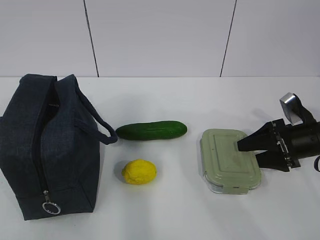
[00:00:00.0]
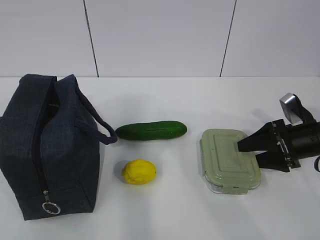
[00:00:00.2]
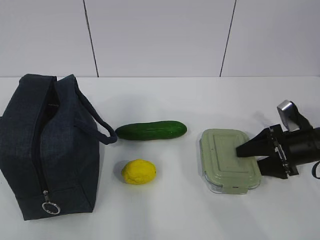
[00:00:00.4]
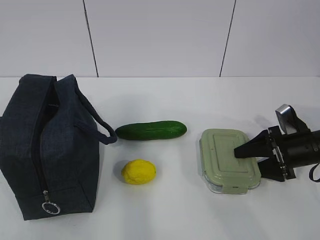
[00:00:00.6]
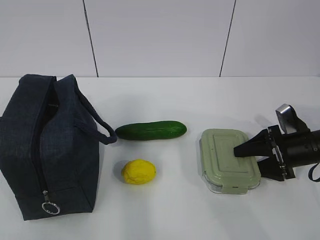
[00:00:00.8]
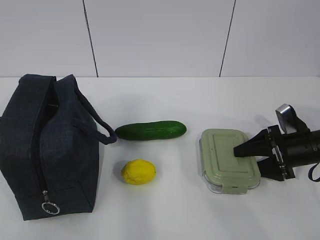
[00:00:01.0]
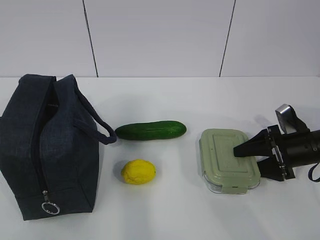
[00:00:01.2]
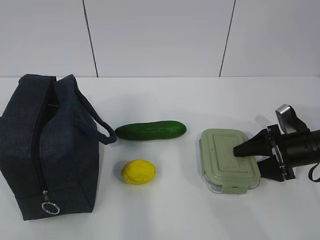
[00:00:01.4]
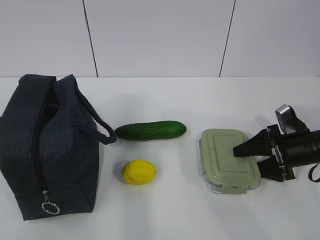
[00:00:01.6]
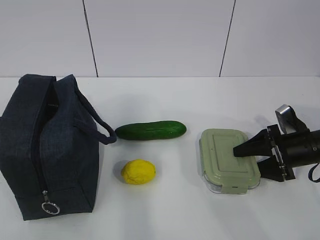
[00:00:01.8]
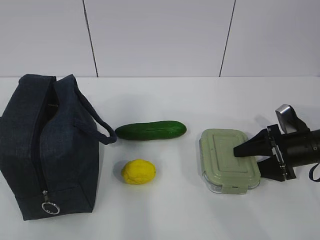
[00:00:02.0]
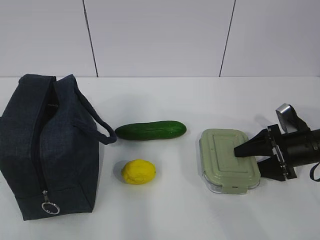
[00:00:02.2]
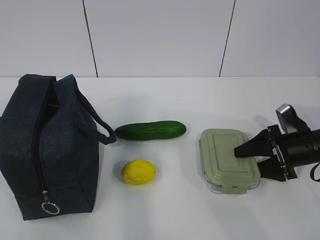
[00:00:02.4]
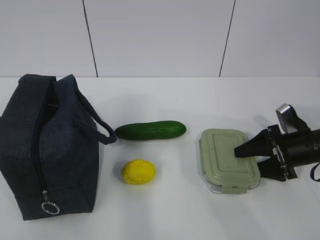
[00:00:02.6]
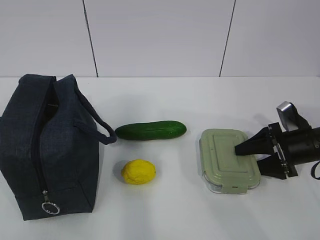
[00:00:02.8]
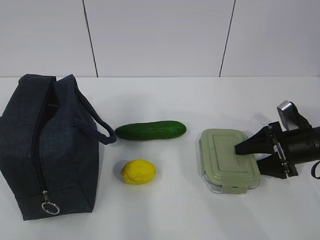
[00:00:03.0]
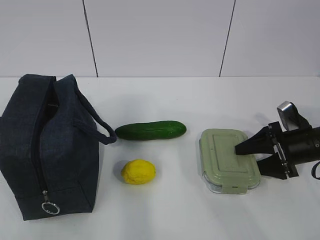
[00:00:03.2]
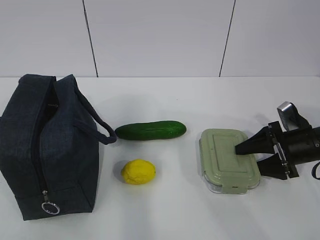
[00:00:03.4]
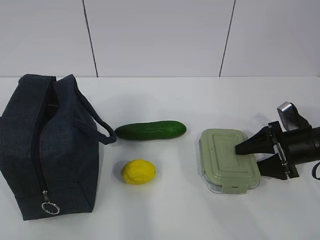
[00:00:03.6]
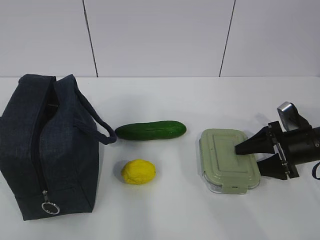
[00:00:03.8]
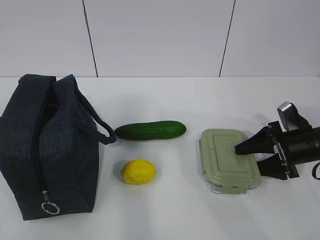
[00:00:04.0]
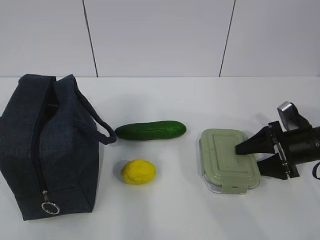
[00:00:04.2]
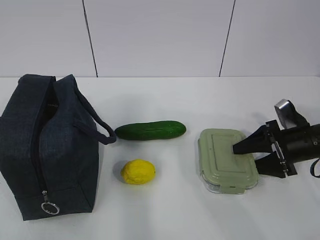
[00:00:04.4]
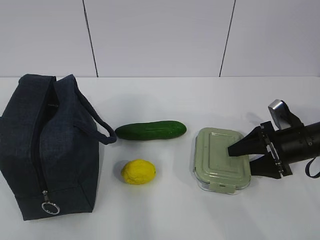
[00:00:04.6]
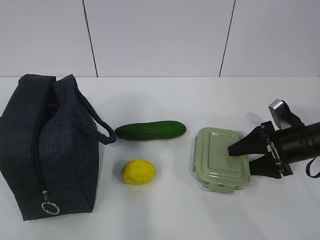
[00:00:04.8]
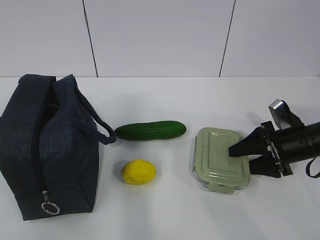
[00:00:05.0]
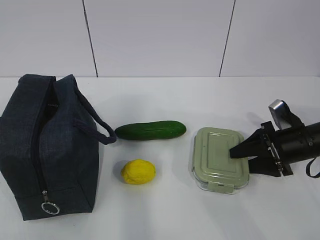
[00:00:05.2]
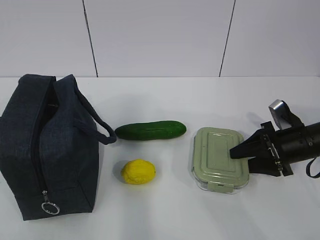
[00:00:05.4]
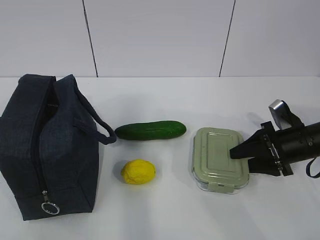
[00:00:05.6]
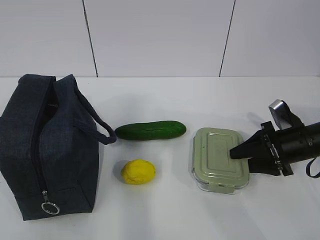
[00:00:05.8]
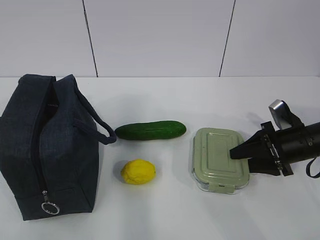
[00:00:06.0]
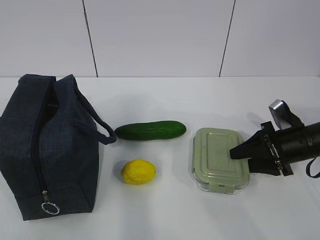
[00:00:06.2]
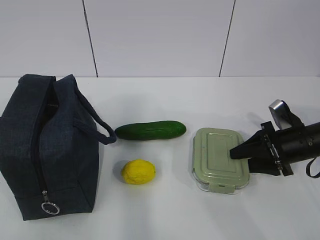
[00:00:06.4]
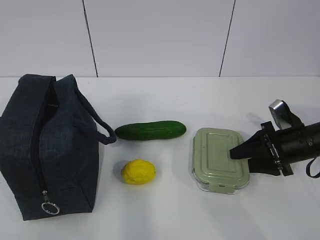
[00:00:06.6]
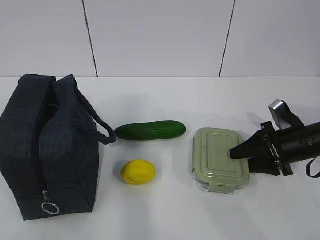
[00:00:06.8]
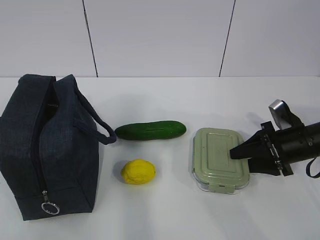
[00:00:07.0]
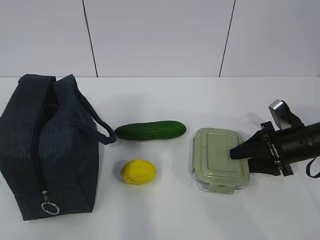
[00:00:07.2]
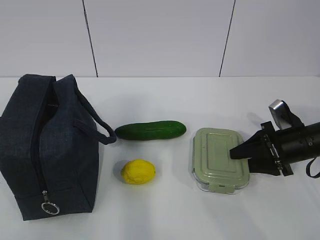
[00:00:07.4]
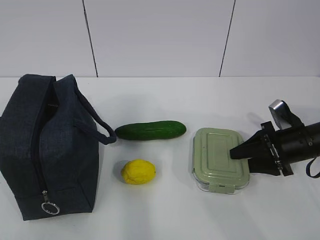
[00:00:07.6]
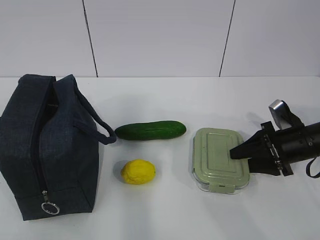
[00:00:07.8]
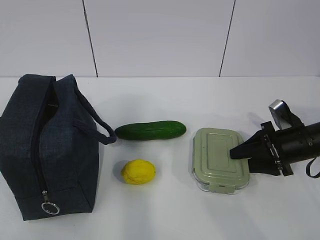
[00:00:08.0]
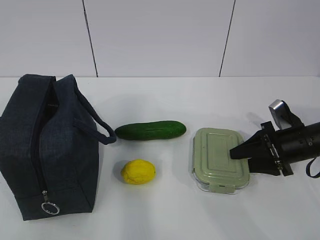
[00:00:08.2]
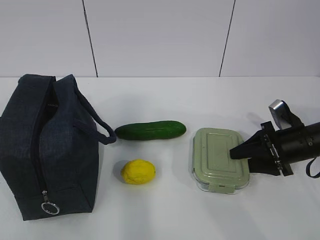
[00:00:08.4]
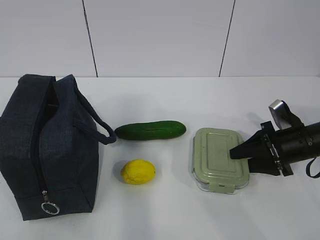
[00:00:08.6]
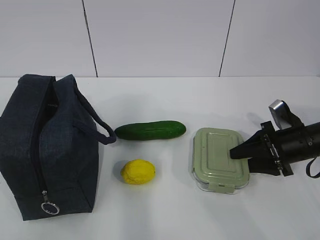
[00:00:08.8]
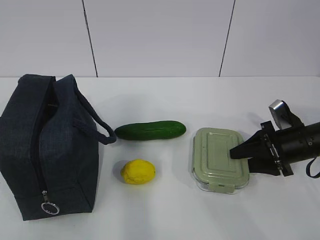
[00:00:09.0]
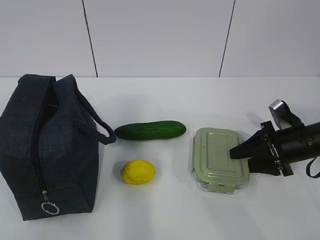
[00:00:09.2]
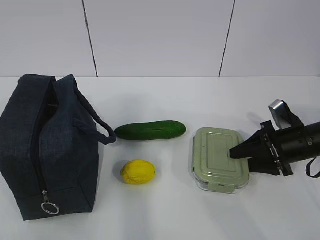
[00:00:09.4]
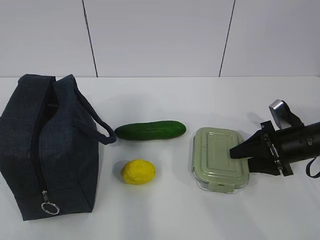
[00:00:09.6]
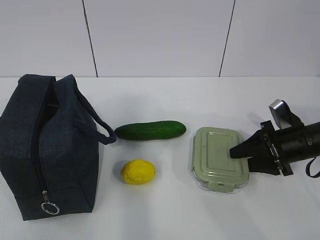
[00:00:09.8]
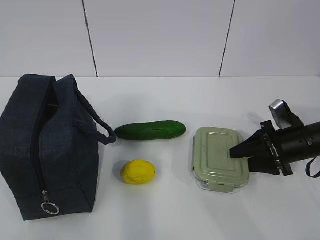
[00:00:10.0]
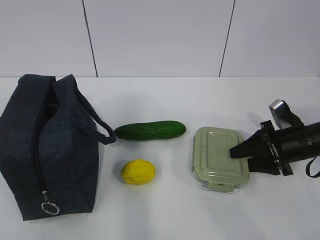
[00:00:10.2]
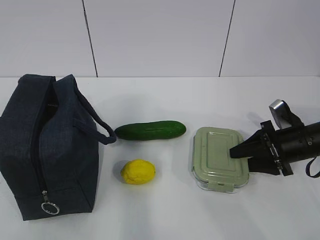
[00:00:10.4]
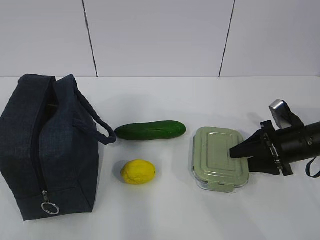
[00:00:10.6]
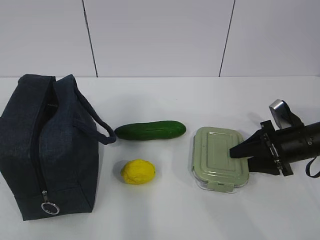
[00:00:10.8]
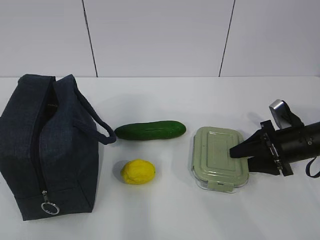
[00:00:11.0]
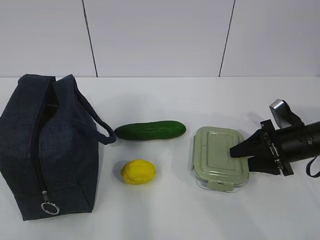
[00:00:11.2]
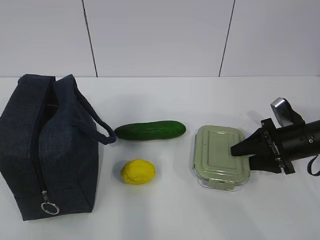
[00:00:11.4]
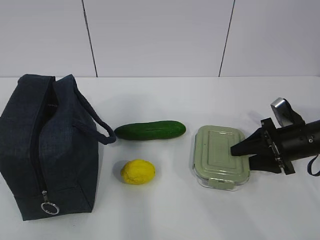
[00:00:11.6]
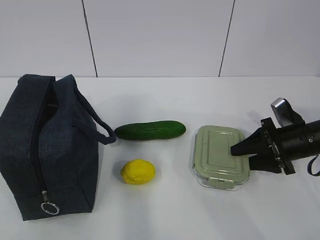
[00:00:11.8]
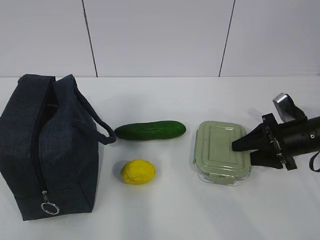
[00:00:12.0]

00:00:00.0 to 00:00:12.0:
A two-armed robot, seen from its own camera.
Step, 00:00:00.0 to 00:00:08.2: Grab the lunch box with your right hand.
00:00:00.0 to 00:00:01.6: The grippers move only a little.
00:00:01.6 to 00:00:03.0: Both grippers stay put.
00:00:03.0 to 00:00:04.4: The two grippers keep their place.
00:00:04.4 to 00:00:10.4: Both grippers stay about where they are.
00:00:10.4 to 00:00:12.0: Neither gripper changes place.

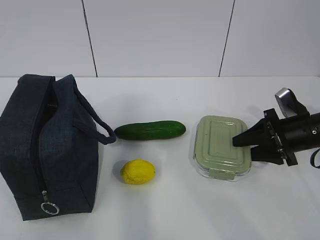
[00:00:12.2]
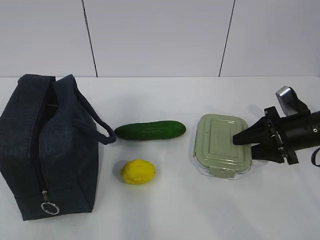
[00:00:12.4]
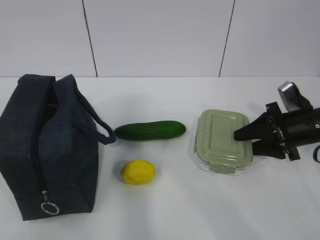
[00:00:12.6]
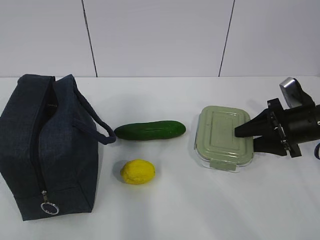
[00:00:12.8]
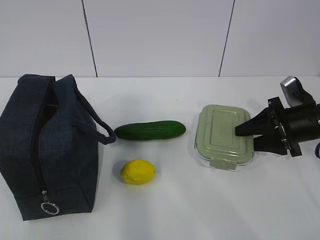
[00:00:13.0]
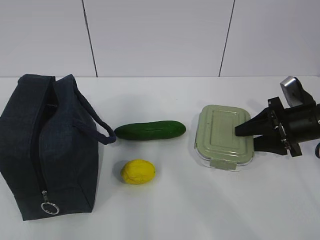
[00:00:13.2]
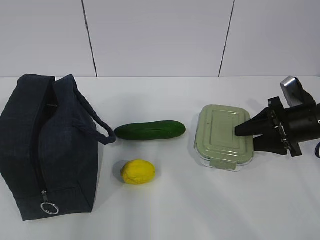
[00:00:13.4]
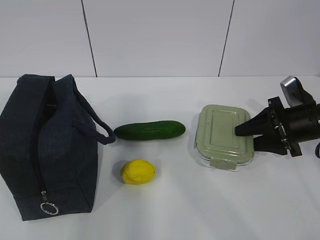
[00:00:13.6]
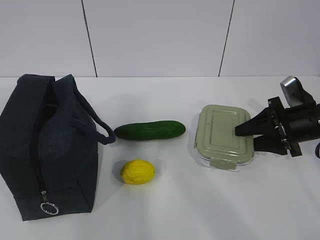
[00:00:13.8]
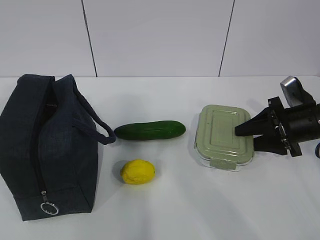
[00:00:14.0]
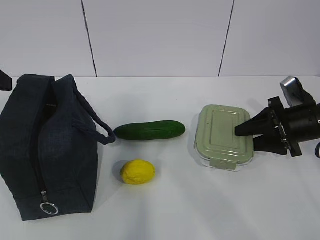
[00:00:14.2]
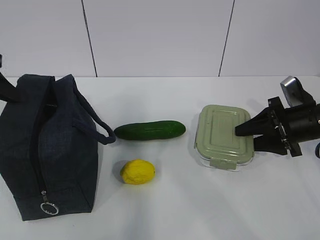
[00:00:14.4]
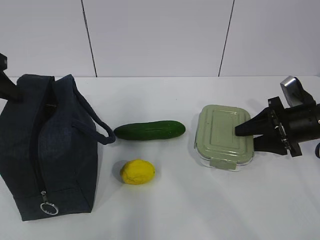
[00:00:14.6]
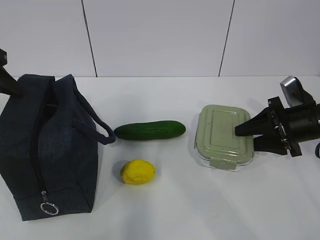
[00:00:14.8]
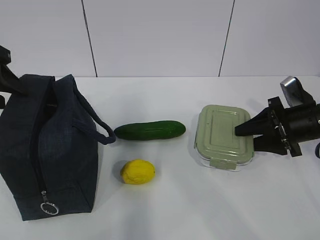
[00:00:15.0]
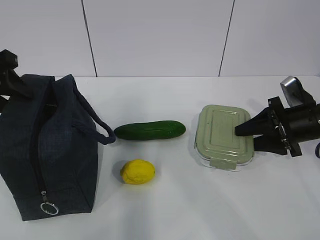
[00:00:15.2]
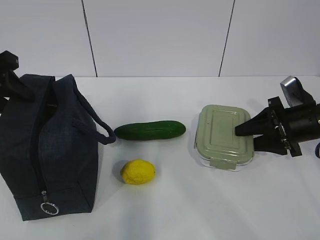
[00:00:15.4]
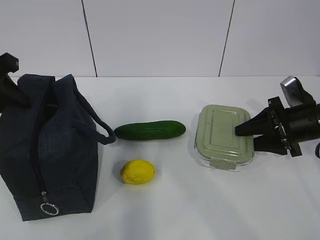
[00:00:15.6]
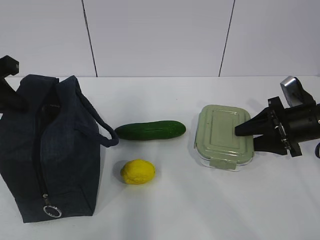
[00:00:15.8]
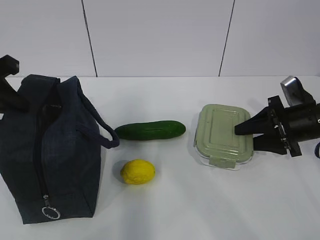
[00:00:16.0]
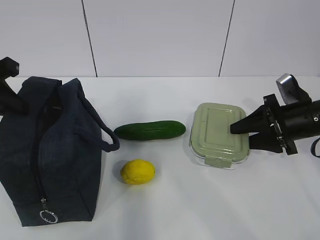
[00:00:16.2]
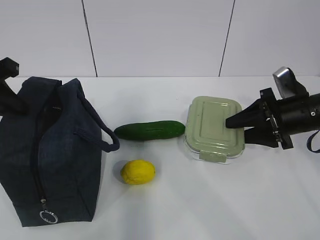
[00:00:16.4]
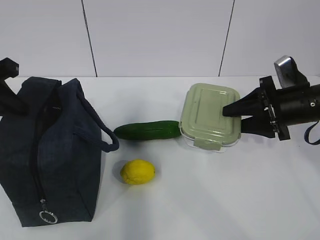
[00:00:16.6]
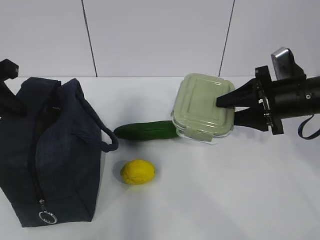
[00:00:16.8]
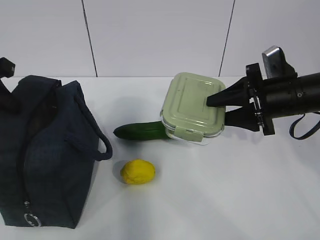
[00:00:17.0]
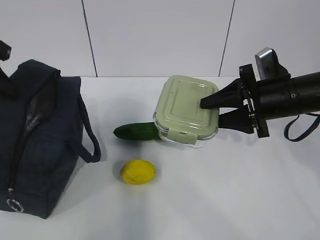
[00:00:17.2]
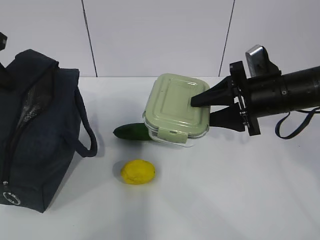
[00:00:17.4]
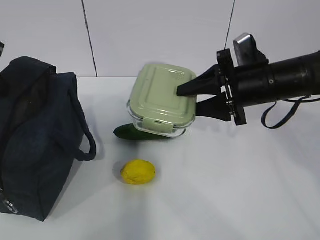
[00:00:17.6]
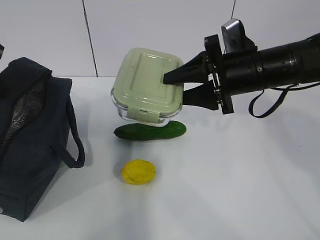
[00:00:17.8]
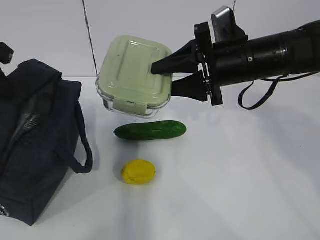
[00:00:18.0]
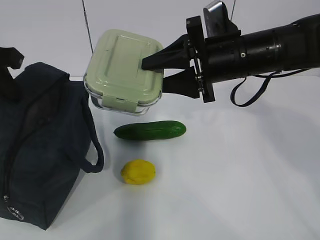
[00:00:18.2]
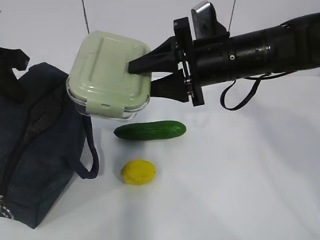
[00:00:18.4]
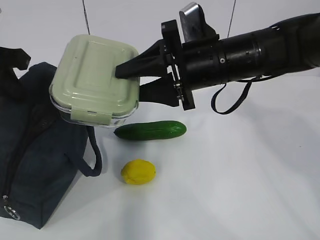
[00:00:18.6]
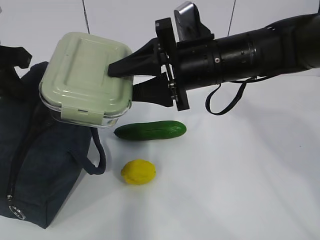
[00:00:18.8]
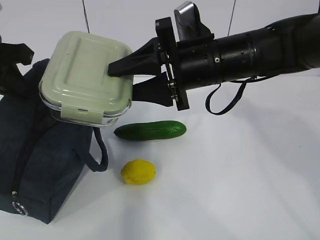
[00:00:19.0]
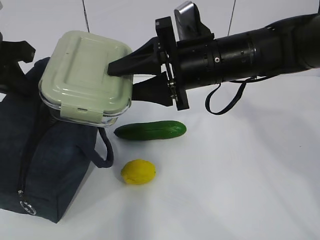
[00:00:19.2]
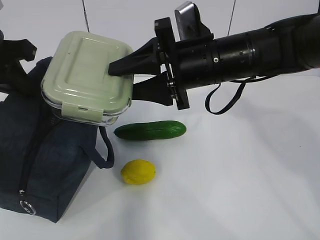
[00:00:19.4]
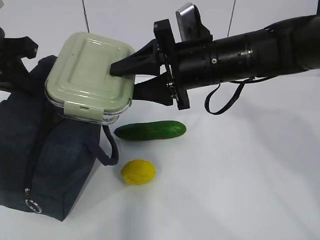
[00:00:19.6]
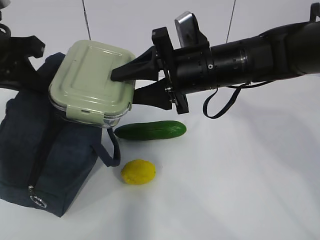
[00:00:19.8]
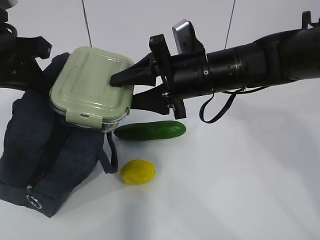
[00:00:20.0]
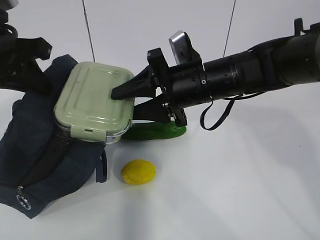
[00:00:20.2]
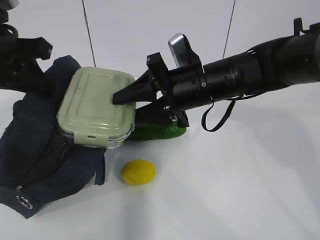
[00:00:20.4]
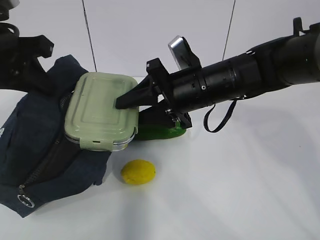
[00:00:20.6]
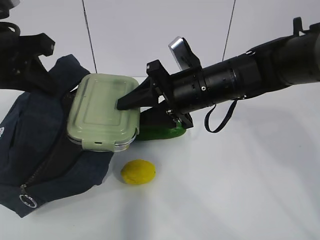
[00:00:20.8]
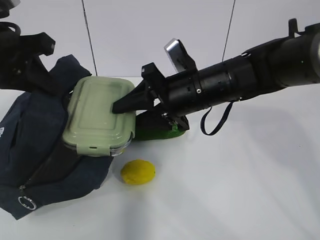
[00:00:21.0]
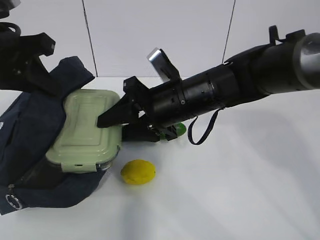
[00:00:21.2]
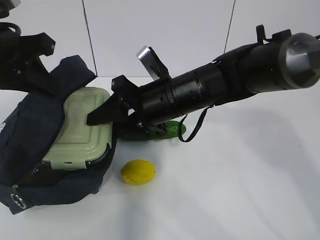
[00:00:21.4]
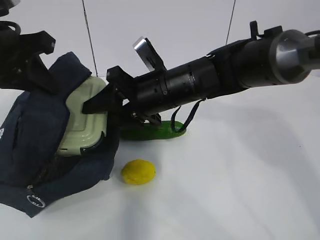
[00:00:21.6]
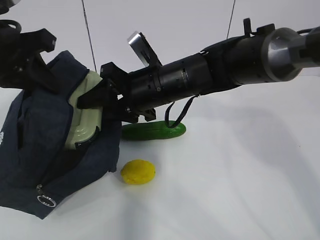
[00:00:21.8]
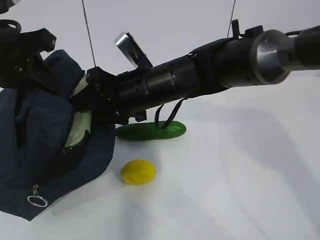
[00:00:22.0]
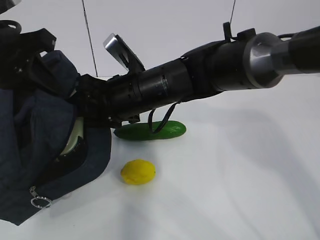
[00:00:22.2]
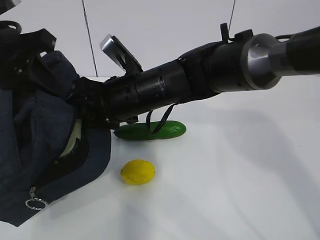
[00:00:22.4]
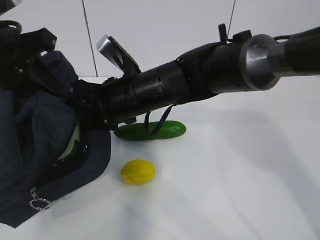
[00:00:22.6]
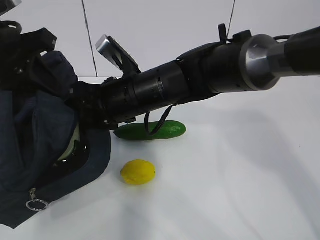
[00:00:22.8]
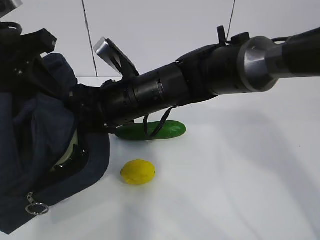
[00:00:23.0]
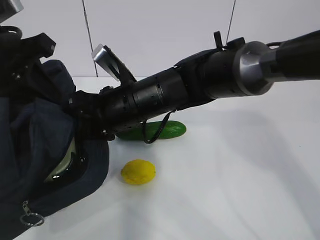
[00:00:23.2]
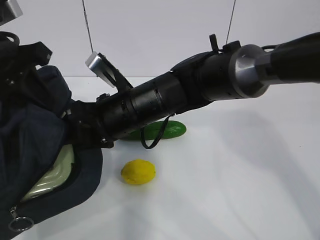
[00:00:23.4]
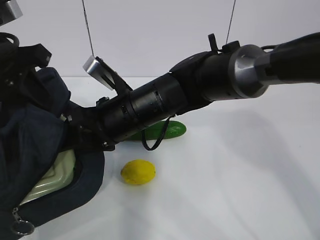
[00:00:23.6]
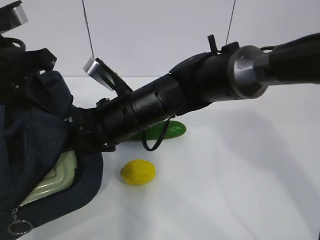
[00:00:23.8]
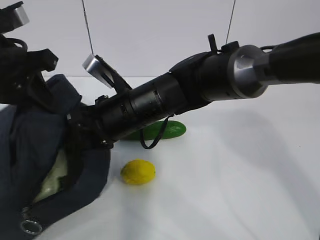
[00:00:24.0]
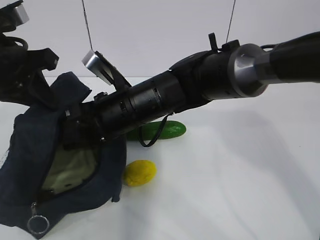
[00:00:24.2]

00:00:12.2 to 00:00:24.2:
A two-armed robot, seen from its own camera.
Step, 00:00:12.2 to 00:00:15.2: Grab the lunch bag with your left hand.
Step, 00:00:15.4 to 00:00:18.8: Place it into the bag with your right hand.
Step, 00:00:19.0 to 00:00:22.0: Grab the cucumber with your right hand.
00:00:12.2 to 00:00:13.8: The left gripper shifts roughly 20 cm forward.
00:00:13.8 to 00:00:15.2: The left gripper goes approximately 15 cm forward and downward.
00:00:15.2 to 00:00:16.6: The left gripper closes up.
00:00:16.6 to 00:00:18.2: The right gripper is displaced to the left and upward by about 15 cm.
00:00:19.8 to 00:00:21.2: The right gripper shifts by approximately 5 cm.
00:00:21.2 to 00:00:22.6: The right gripper heads to the left, covering approximately 5 cm.
